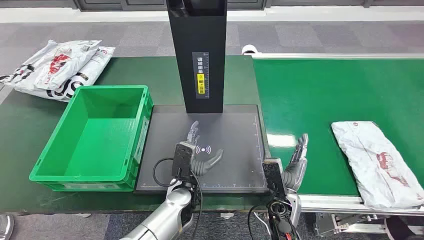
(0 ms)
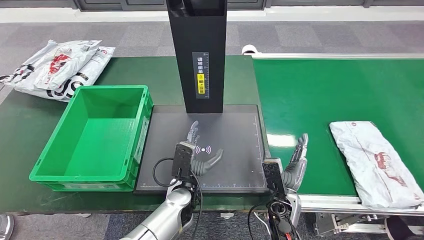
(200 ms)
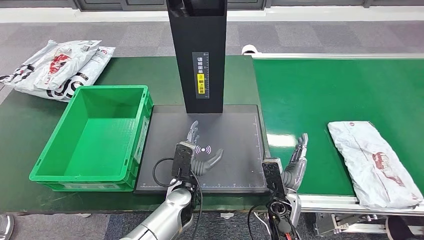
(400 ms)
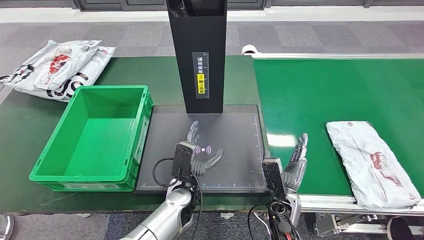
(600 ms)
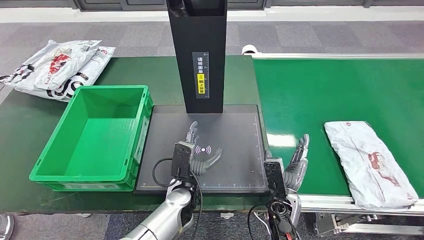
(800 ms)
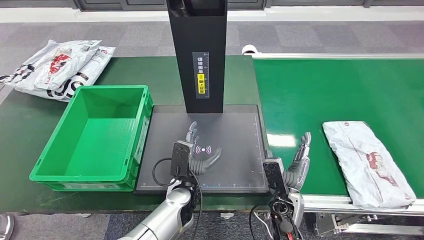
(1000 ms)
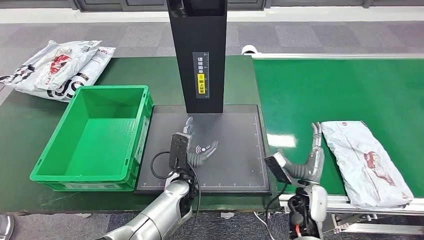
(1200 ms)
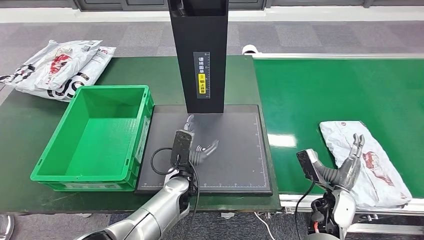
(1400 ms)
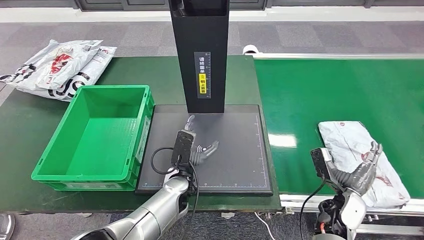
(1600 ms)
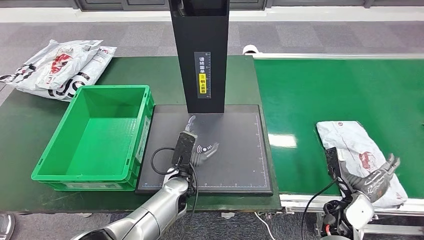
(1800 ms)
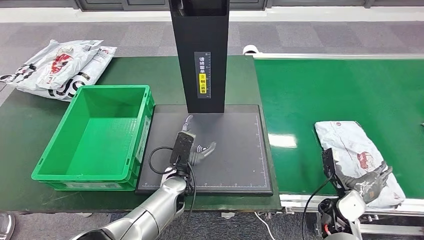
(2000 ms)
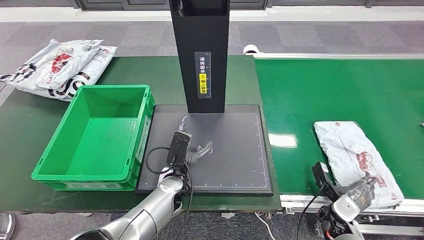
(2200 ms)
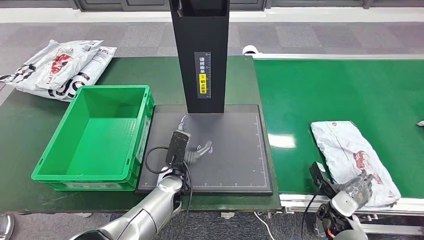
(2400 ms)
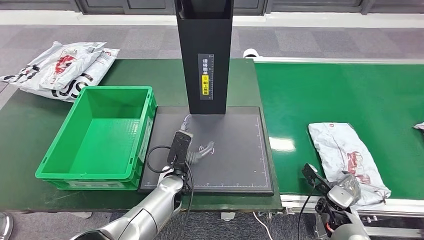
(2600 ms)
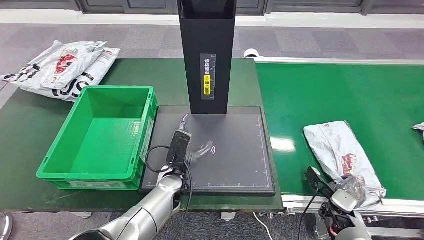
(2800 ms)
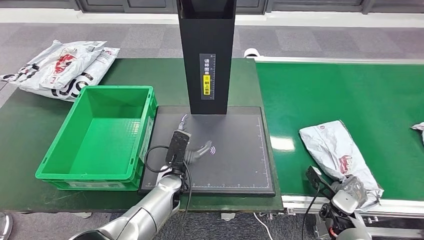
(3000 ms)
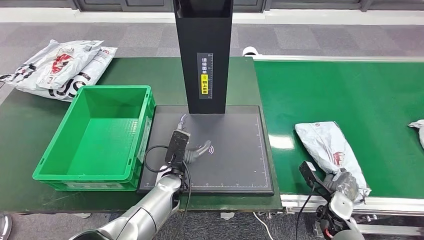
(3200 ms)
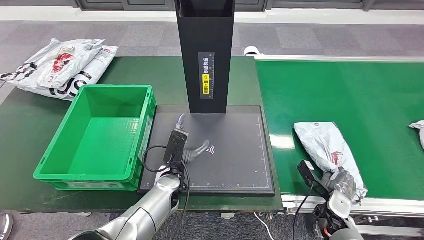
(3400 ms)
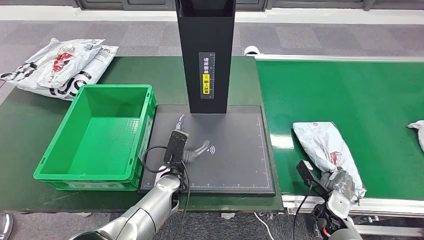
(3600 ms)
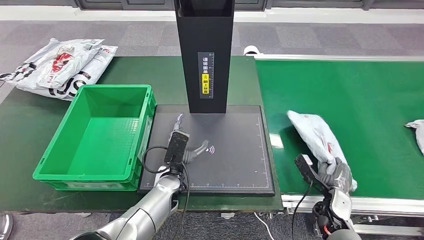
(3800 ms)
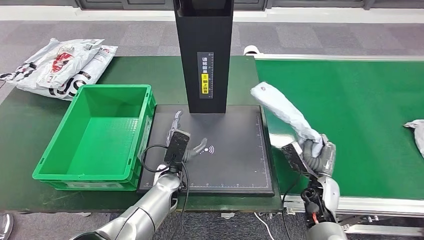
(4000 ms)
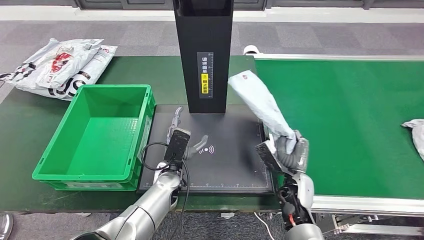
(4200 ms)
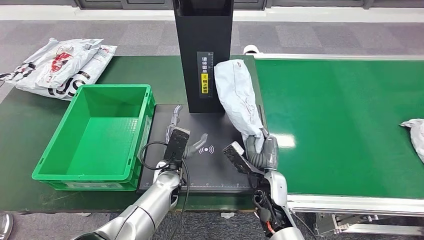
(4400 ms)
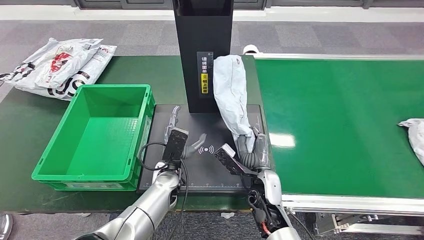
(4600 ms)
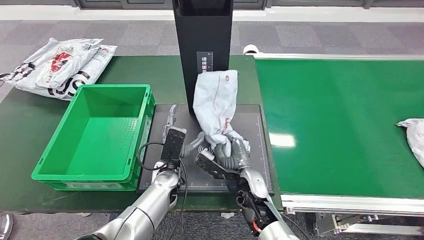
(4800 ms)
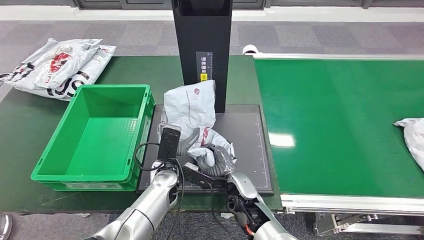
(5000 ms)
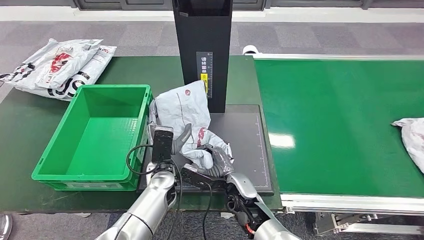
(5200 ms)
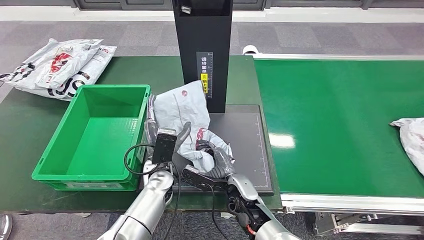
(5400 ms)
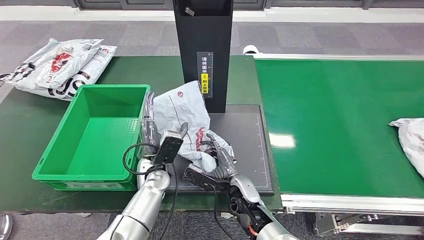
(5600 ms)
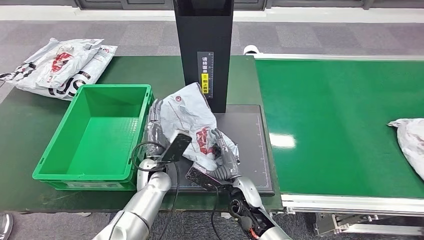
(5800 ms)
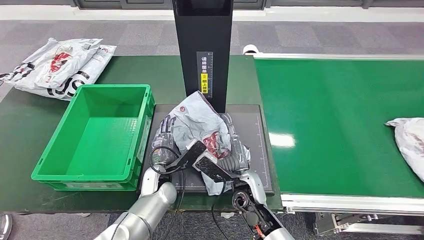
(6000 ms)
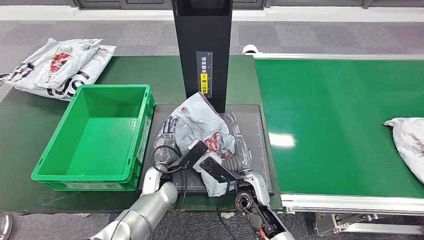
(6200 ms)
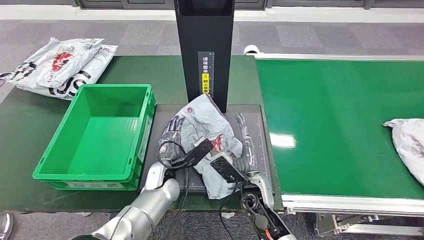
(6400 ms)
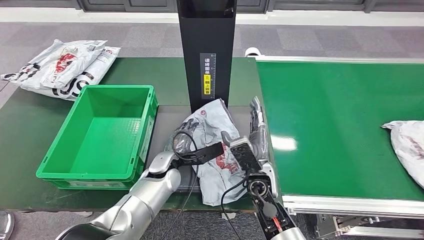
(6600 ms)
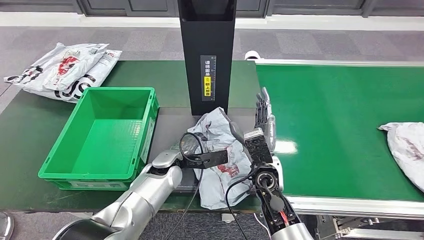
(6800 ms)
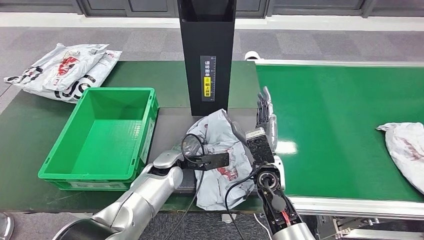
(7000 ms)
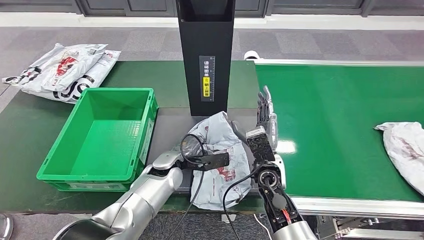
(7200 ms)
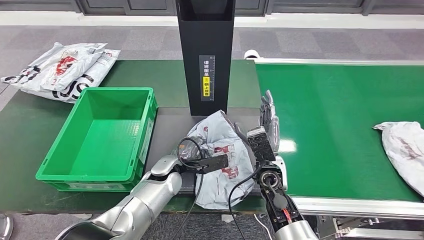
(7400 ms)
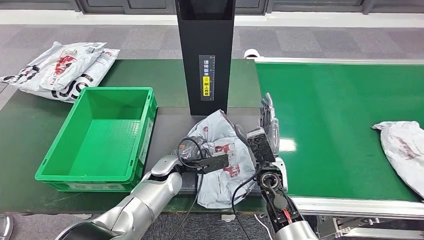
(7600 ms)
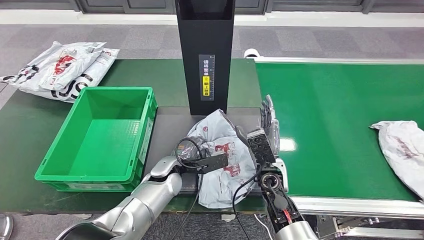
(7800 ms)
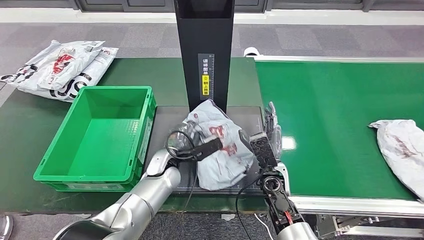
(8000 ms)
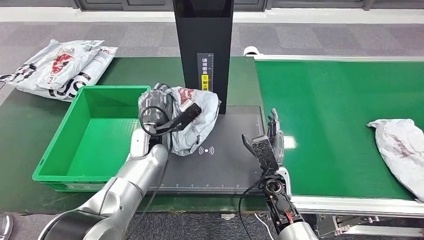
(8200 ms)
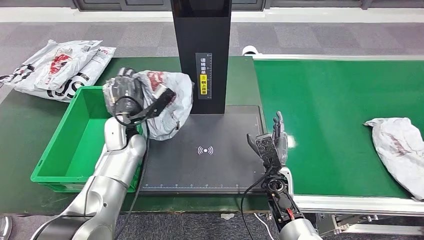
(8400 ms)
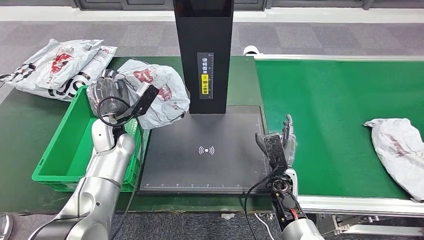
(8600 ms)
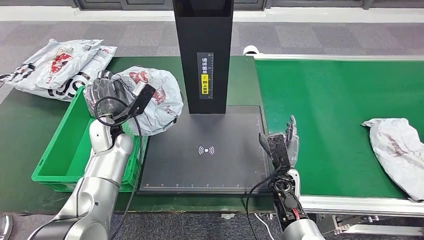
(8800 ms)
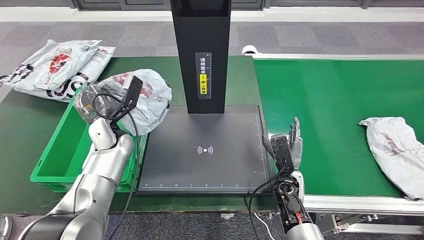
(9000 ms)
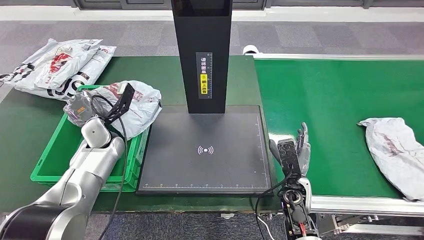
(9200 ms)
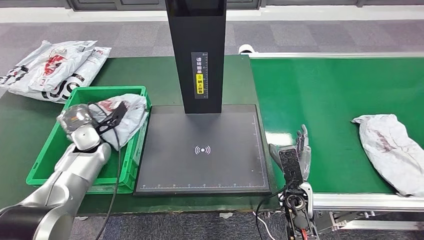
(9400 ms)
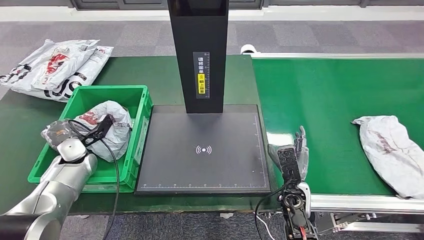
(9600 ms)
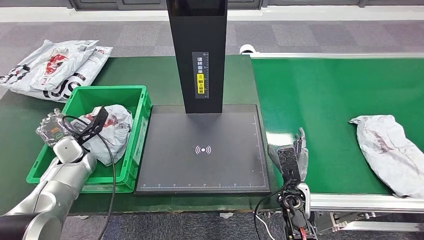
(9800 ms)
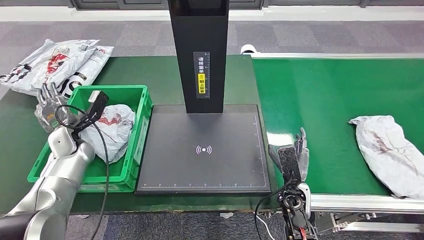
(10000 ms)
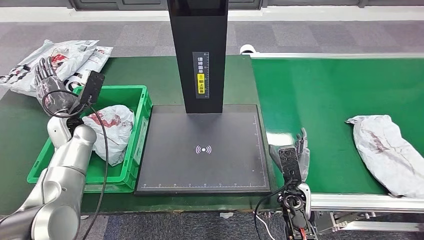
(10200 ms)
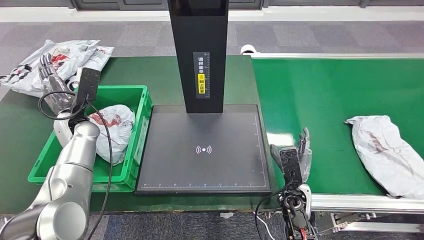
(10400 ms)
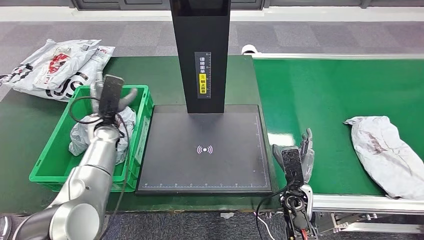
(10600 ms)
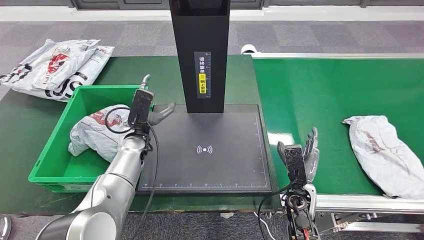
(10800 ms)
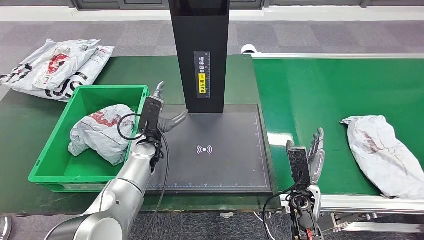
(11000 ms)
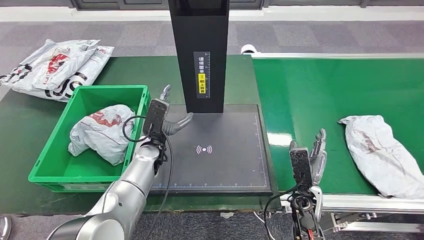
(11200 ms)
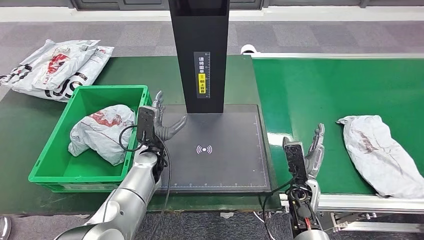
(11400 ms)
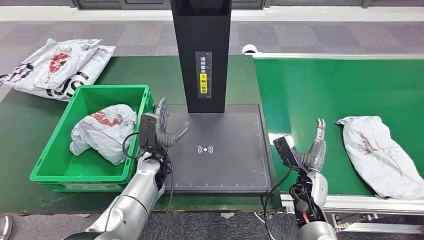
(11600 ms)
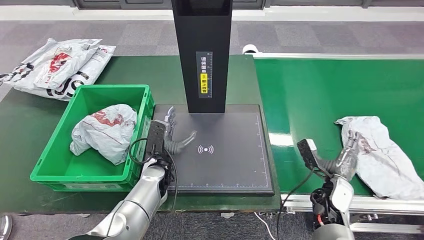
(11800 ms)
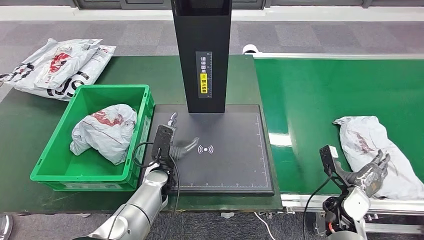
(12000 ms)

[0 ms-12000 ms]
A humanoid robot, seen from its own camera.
Step, 0 ms to 3800 ms: Take the parcel off the conveyor belt.
Step, 4000 ms to 6200 ms: Place the parcel onto the inbound machine.
Step, 6400 ms to 8800 ms: Pick up the parcel from the inbound machine.
Step, 9000 ms to 11400 ms: Put the parcel inside the courier box.
4400 ms to 6000 ms: The right hand shifts some 5 cm to the left.

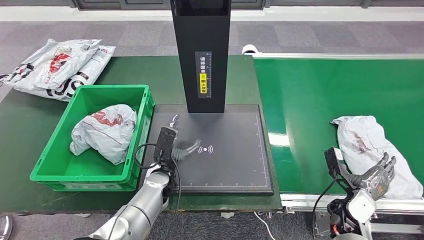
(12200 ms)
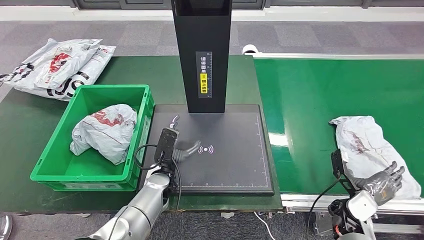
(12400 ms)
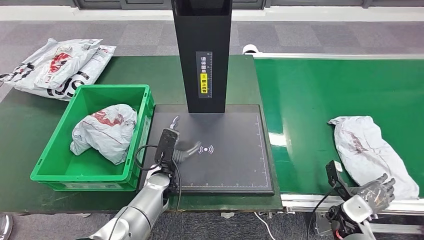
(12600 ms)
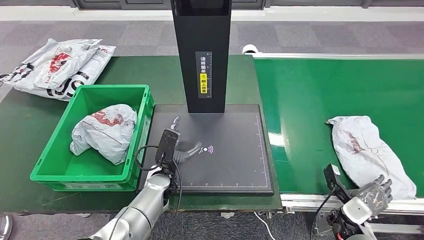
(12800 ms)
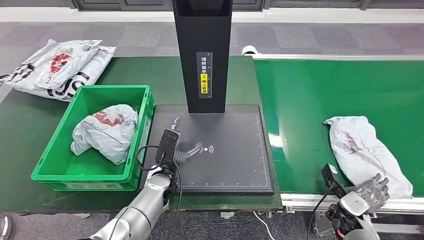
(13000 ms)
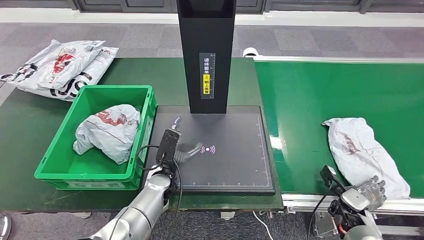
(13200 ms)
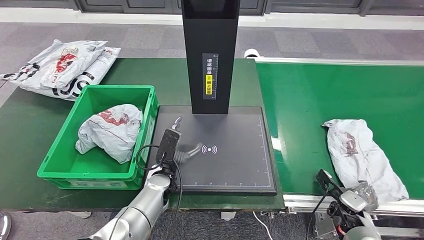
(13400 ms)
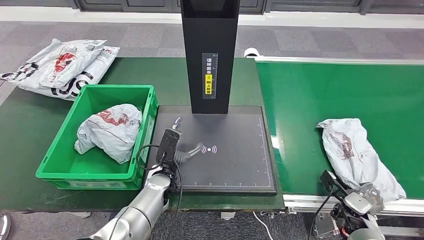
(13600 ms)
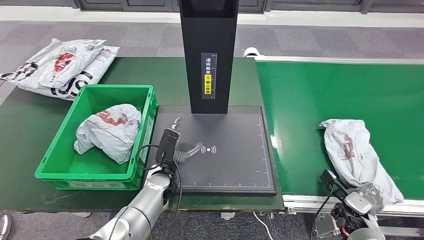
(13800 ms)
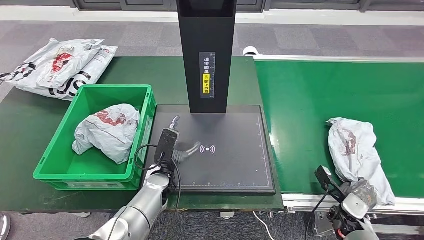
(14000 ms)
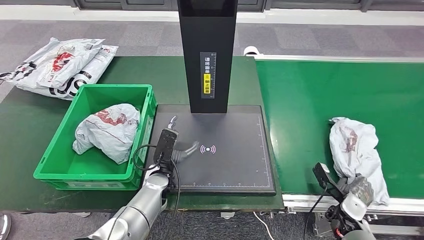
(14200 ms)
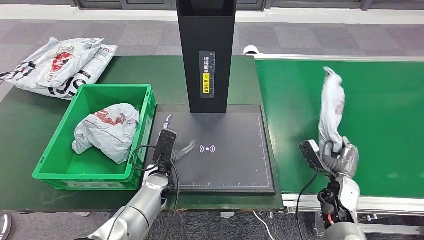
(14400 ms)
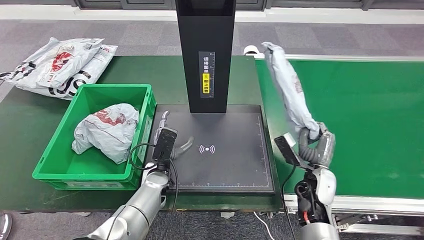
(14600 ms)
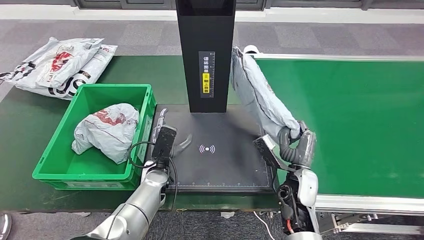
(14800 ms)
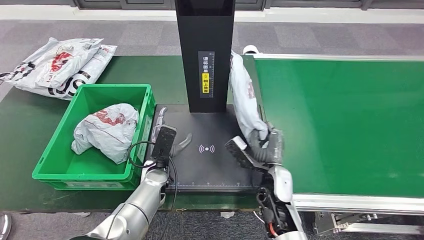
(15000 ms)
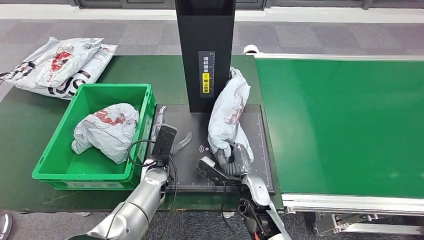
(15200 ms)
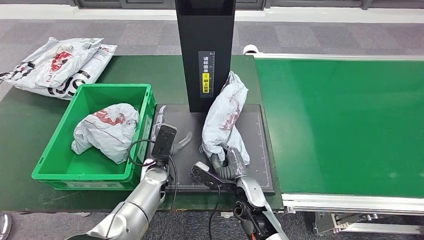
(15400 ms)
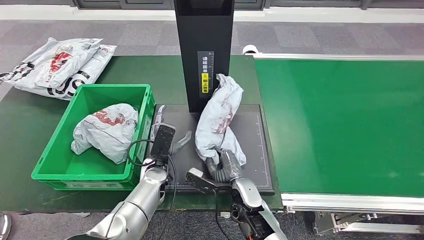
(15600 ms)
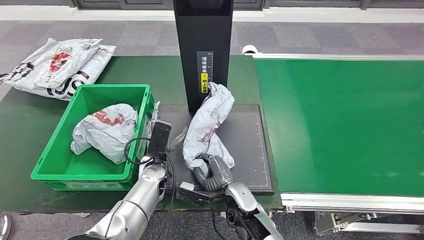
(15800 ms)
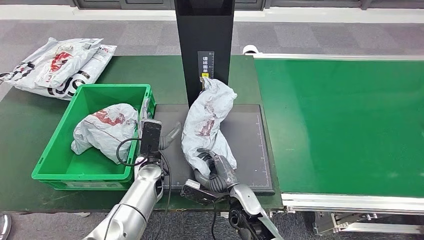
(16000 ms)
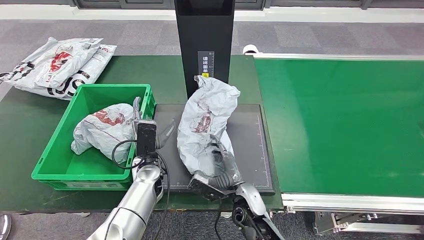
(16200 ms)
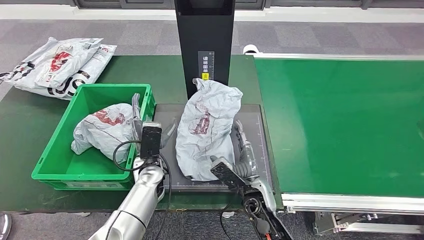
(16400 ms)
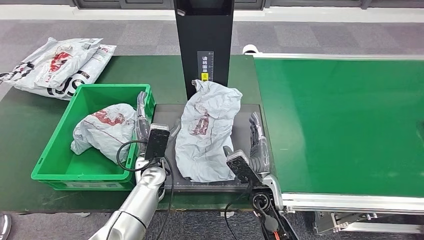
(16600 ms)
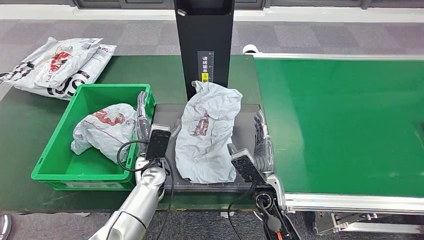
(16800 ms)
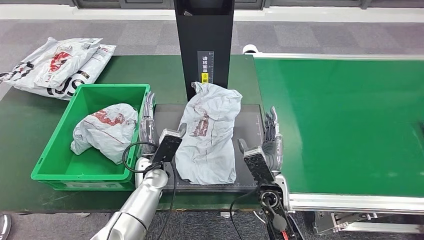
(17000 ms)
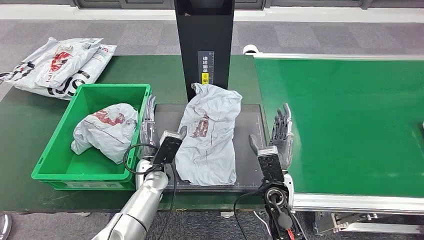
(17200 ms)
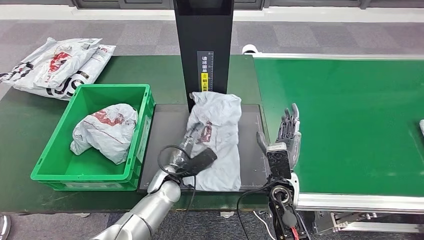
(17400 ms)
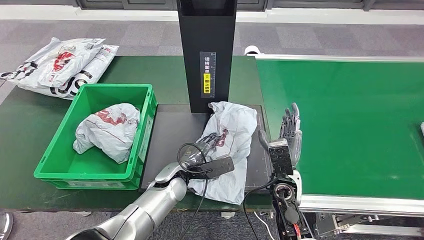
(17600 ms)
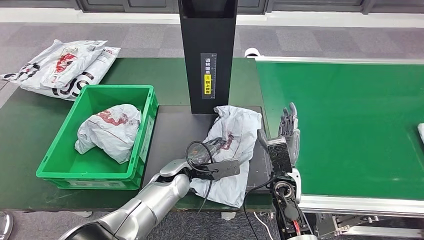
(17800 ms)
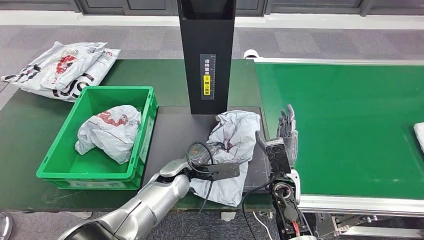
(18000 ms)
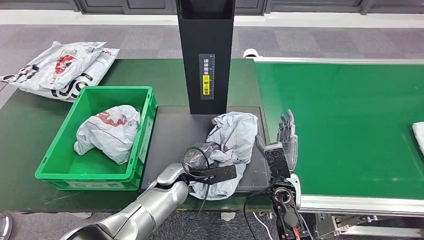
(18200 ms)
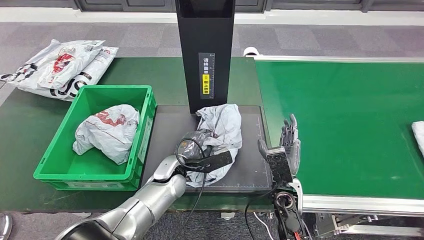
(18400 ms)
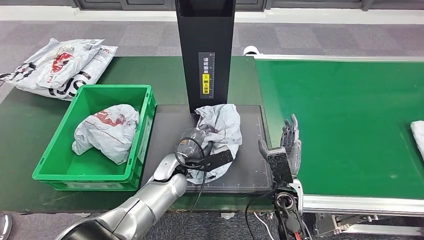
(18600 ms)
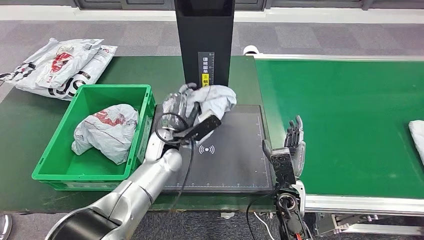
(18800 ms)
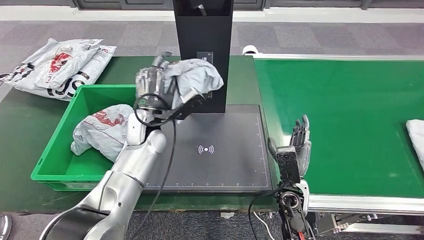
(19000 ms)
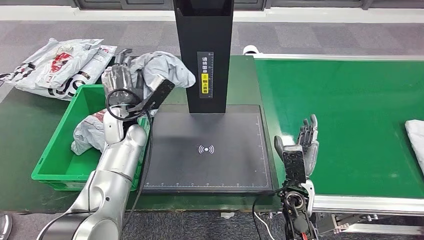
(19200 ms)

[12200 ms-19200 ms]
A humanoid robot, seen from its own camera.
Step, 12200 ms to 14600 ms: Pick up the parcel from the conveyor belt.
Step, 14800 ms to 18200 ms: Place the parcel onto the inbound machine.
